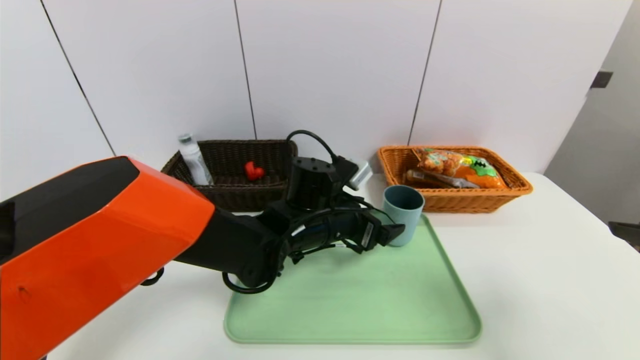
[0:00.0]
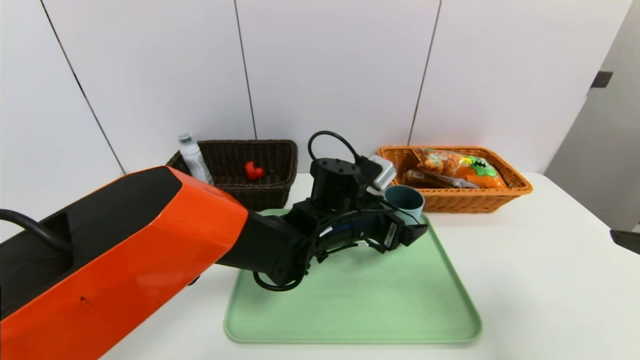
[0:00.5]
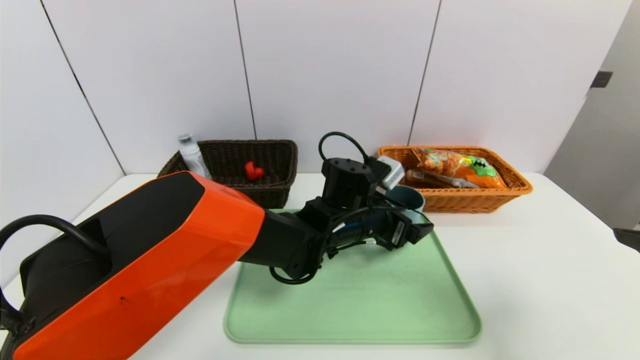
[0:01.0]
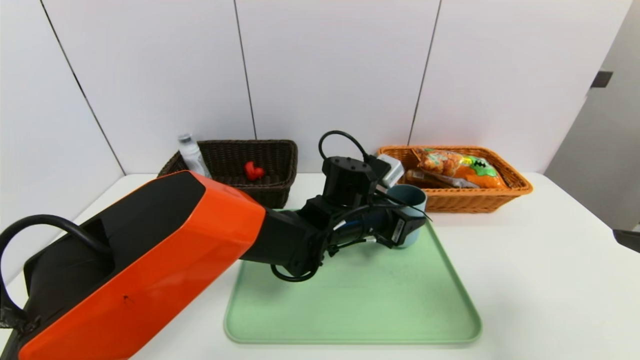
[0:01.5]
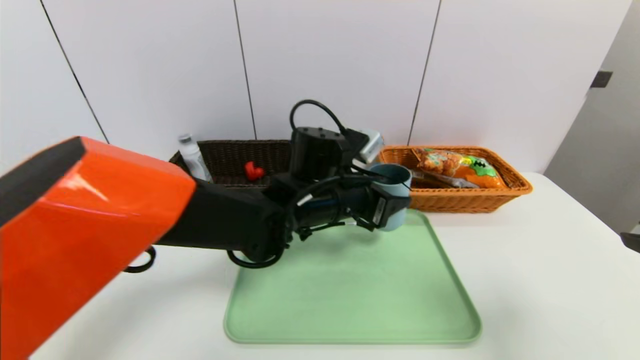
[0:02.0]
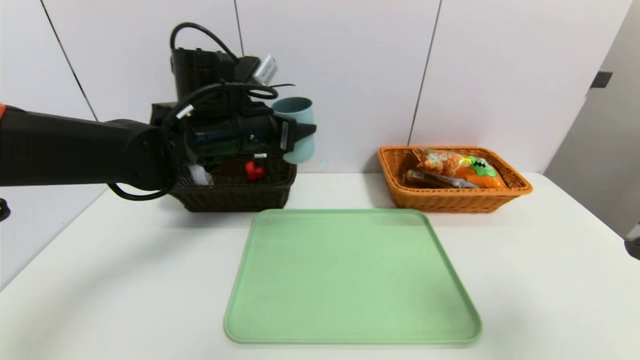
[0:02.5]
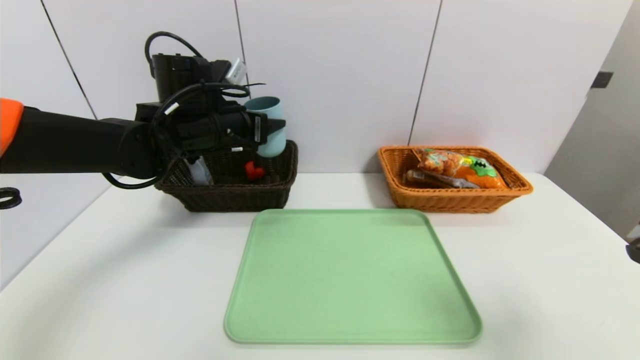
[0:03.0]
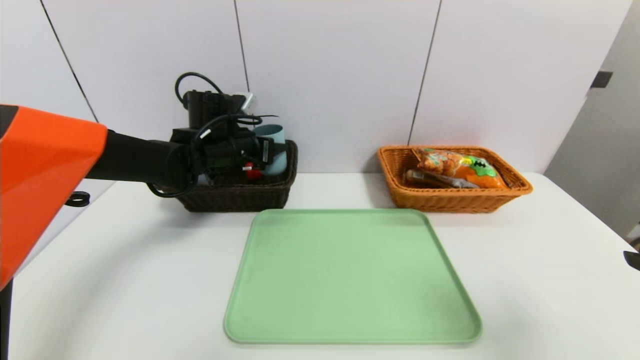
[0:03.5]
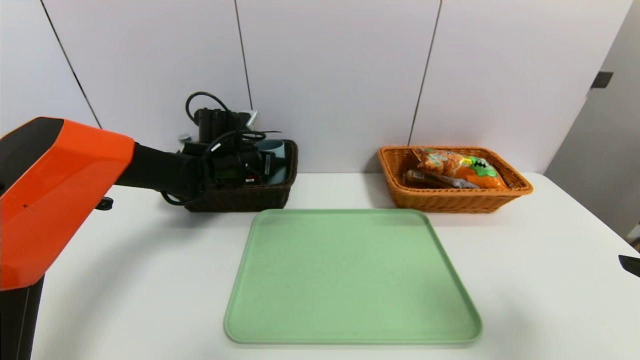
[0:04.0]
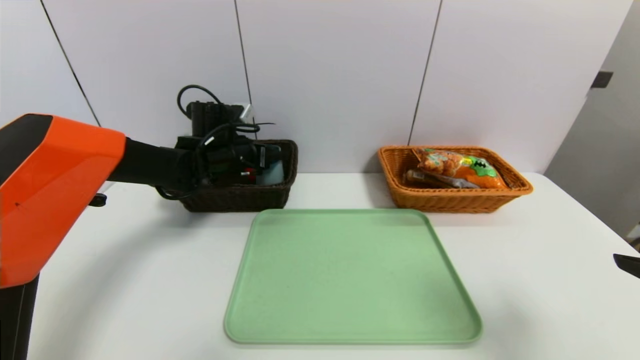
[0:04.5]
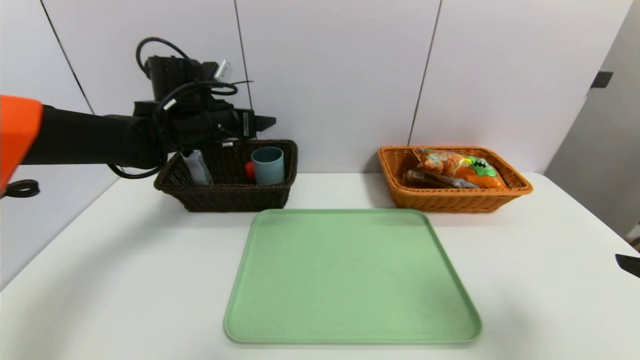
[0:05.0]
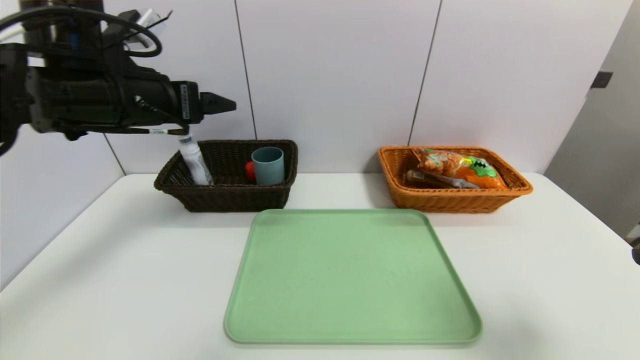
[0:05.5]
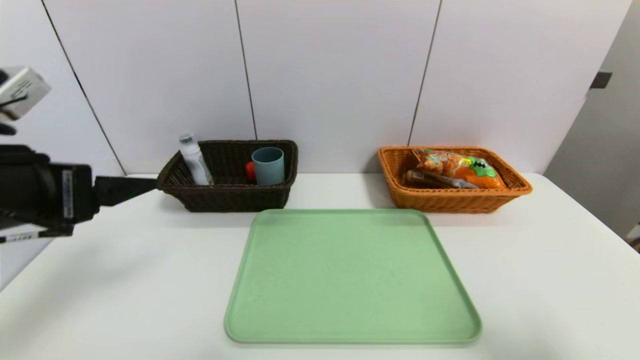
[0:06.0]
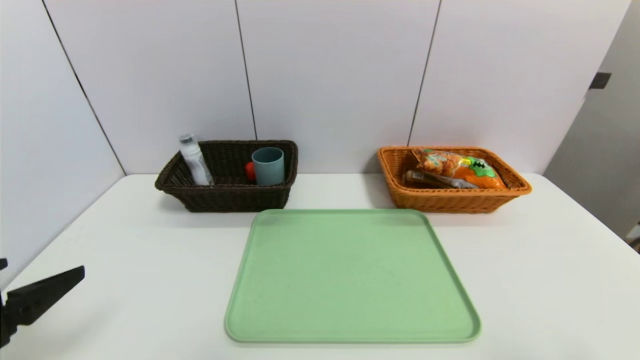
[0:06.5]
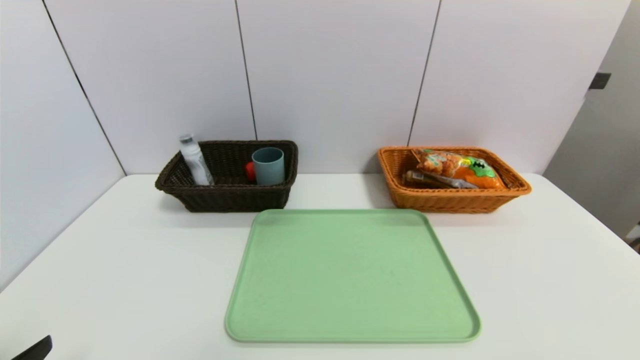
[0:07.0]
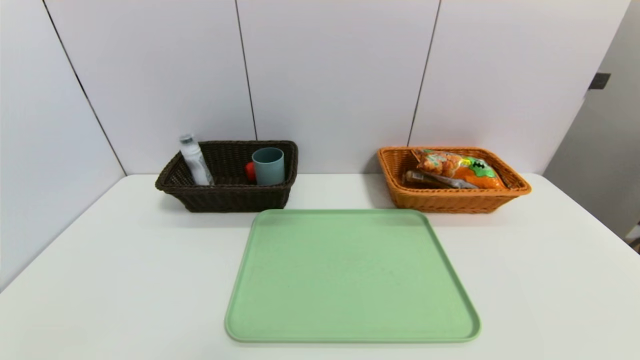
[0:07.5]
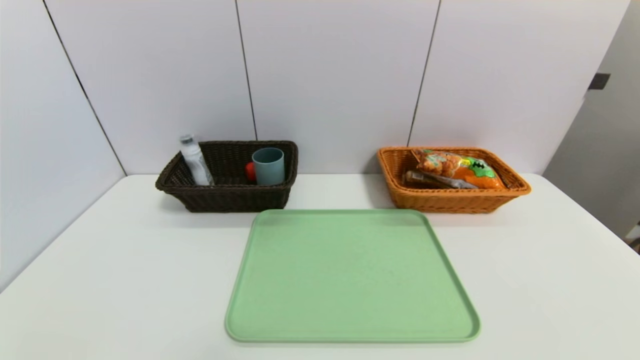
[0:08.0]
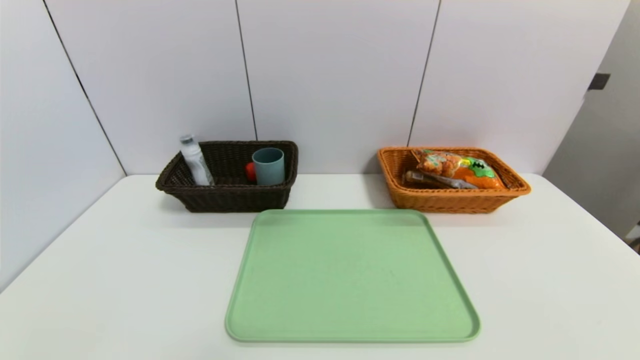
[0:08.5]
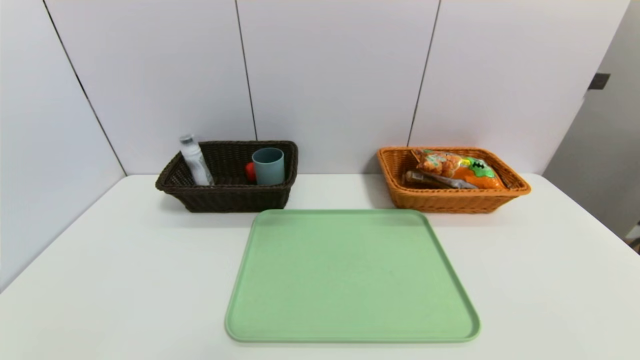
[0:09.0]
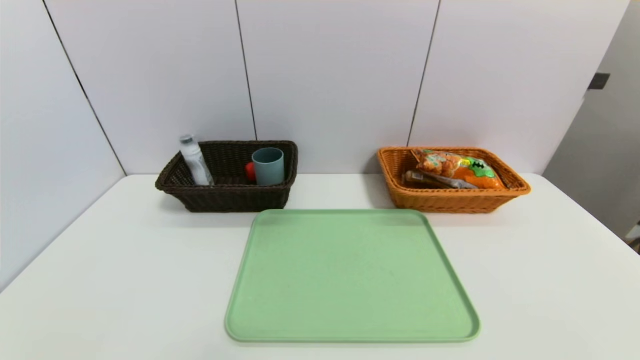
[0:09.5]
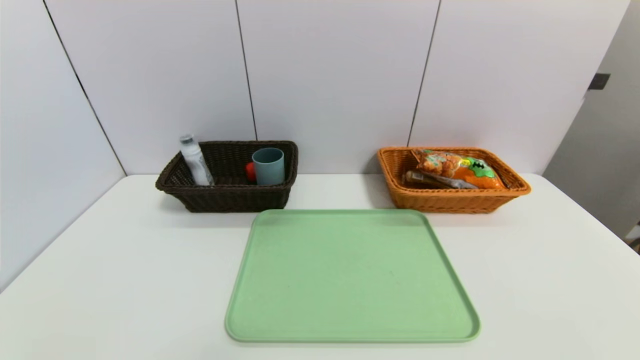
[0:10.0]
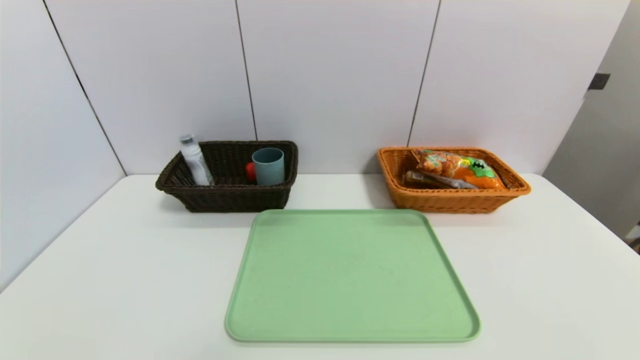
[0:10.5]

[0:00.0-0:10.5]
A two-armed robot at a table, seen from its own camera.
Task of the whole recording: place the food in the right basket with the right gripper, and place the non food items in the left basket with the left gripper.
Step, 0:00.0 to 0:04.5: Grasp the blue cup and put it in the left basket.
0:00.0 to 0:02.0: The left gripper closes up.
0:02.0 to 0:04.0: The left gripper travels to the left and forward by roughly 20 cm.
0:04.0 to 0:06.5: The left gripper heads backward, covering some 35 cm, and opens its fingers; the right gripper heads backward, covering some 5 cm.
0:06.5 to 0:08.5: The left gripper goes about 15 cm downward and backward.

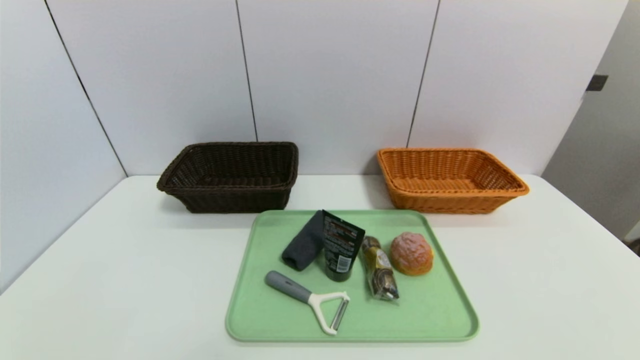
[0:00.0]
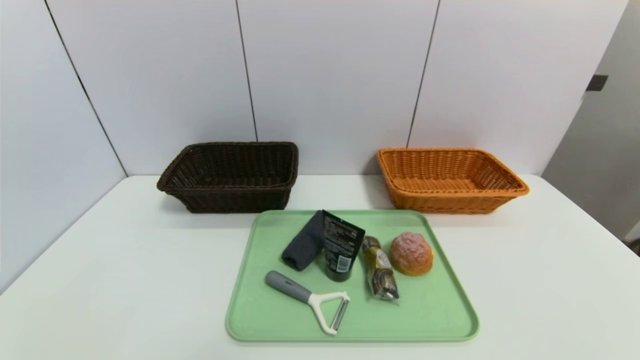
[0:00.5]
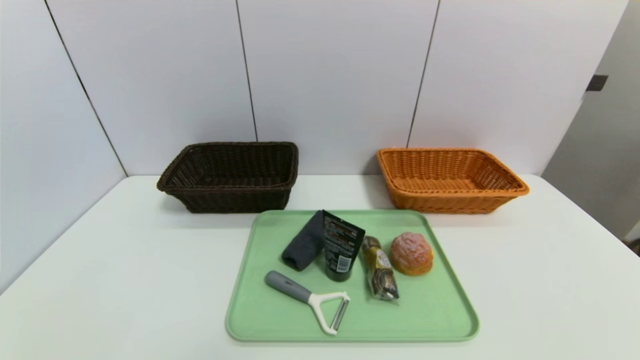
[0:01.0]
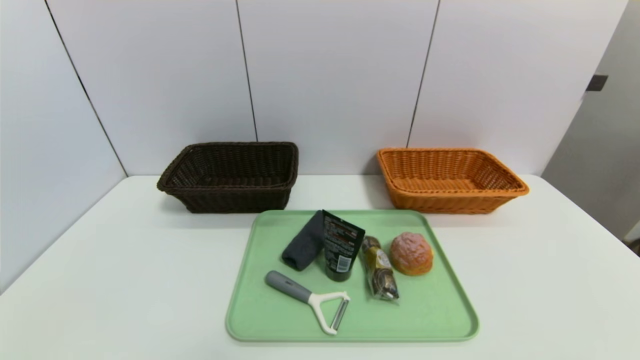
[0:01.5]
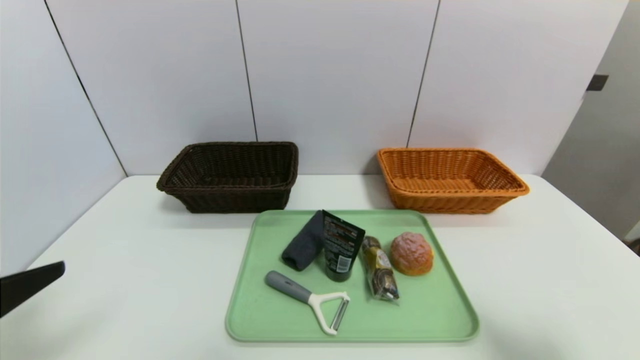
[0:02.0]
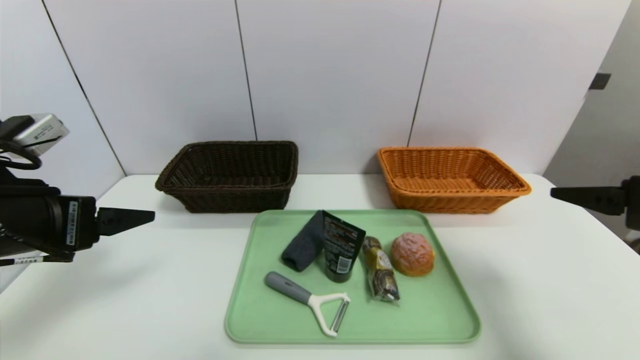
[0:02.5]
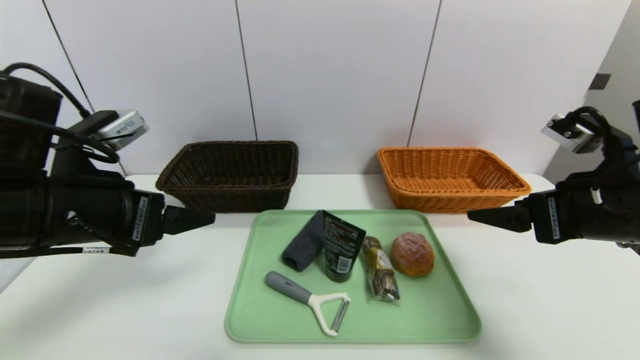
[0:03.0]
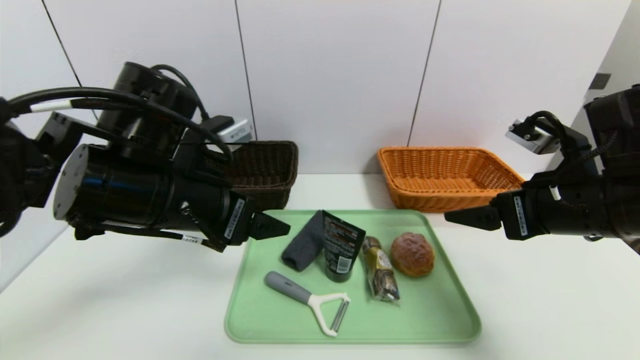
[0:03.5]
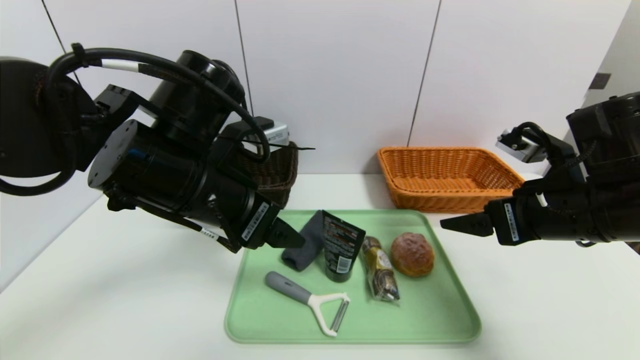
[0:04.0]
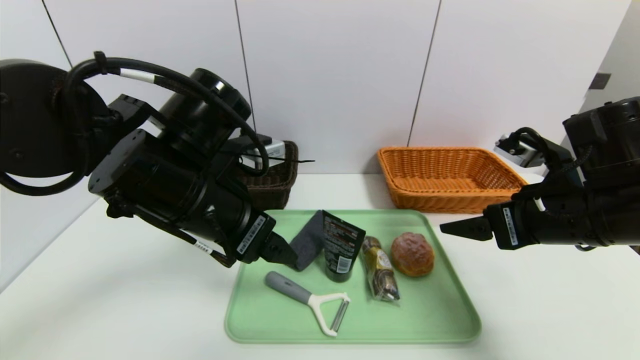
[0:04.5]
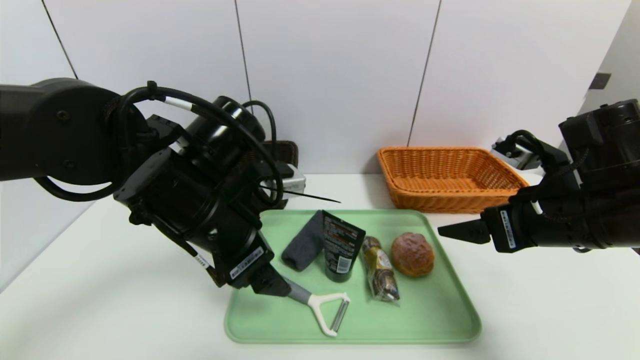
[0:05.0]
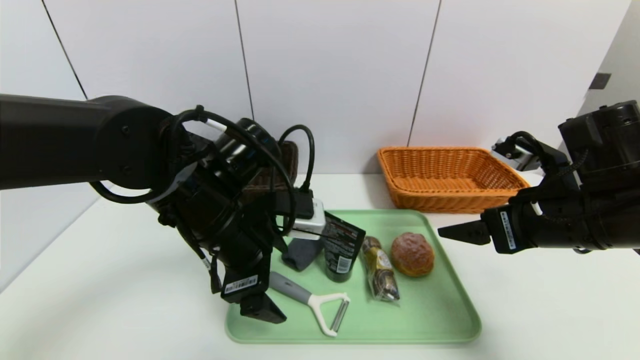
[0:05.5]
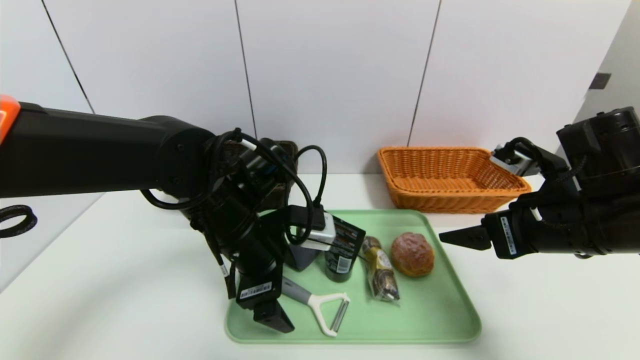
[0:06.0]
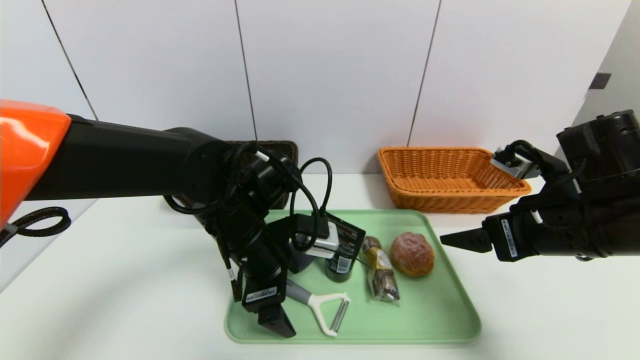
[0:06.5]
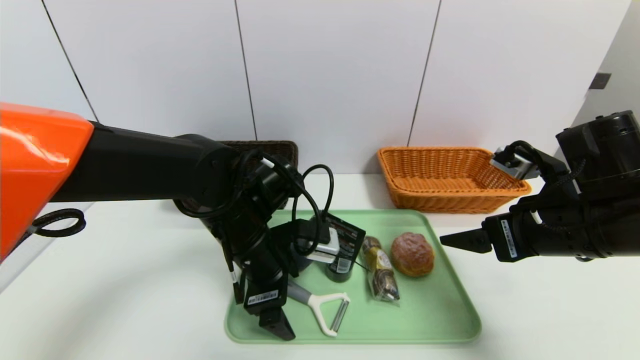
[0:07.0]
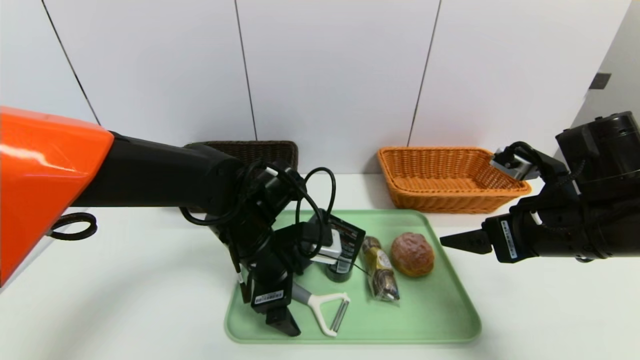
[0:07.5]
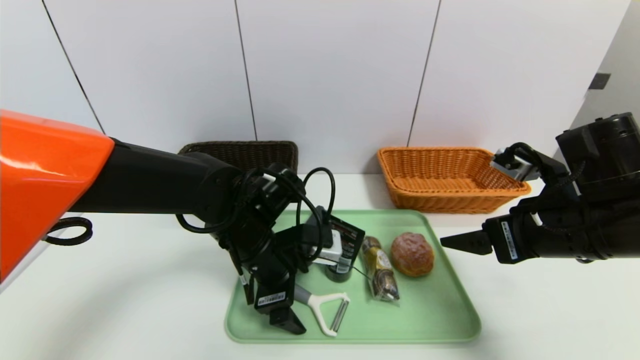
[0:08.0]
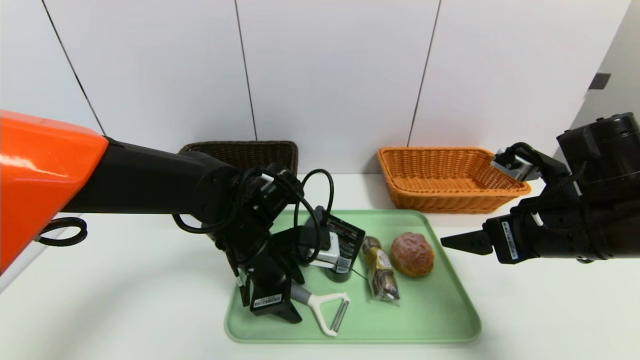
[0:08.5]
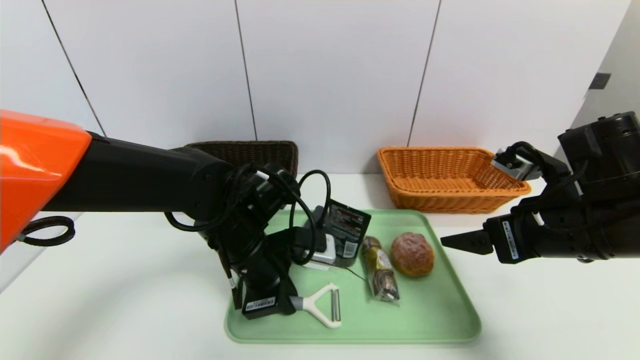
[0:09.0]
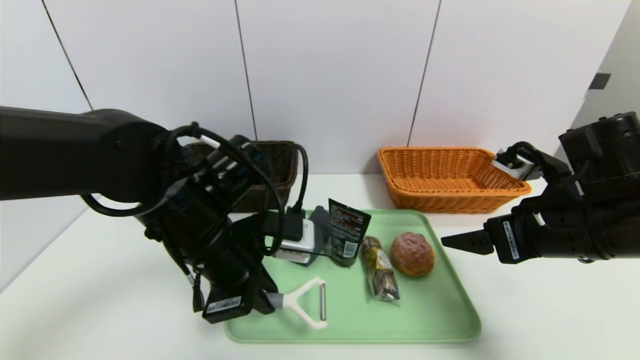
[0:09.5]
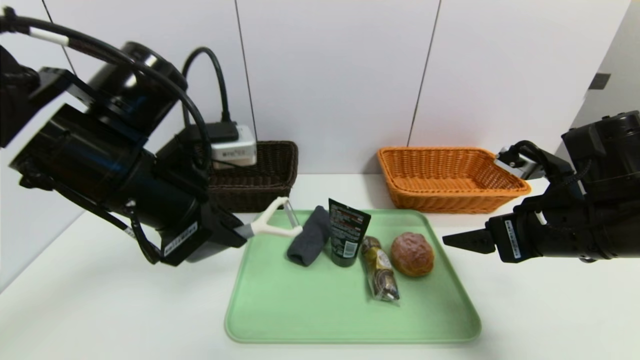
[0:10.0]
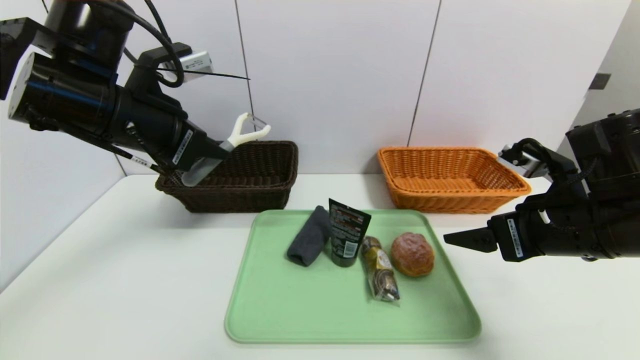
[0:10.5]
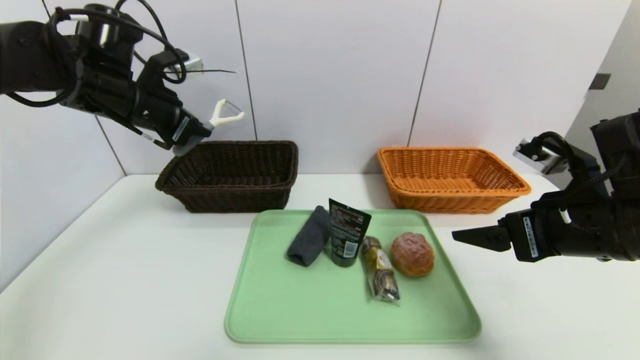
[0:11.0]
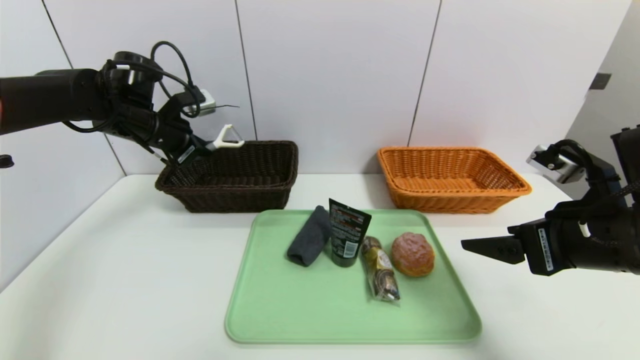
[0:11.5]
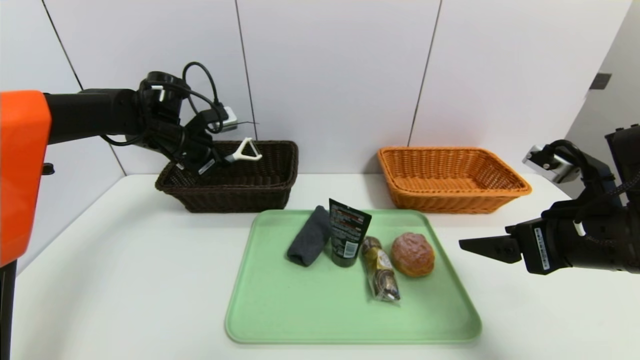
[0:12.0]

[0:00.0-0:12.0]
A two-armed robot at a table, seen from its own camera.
Task of the whole recording: place the food in the right basket with the right gripper, and place the non food items in the left basket with the left gripper.
0:00.0 to 0:02.0: Both grippers move upward and forward, roughly 20 cm.
0:02.0 to 0:04.0: The left gripper travels to the right and forward by roughly 25 cm. Meanwhile the right gripper shifts roughly 20 cm forward and to the left.
0:04.0 to 0:06.0: The left gripper shifts about 10 cm downward.
0:06.0 to 0:08.0: The left gripper moves about 5 cm.
0:08.0 to 0:10.0: The left gripper heads upward and to the left, covering about 15 cm, and closes.
0:10.0 to 0:12.0: The left gripper moves forward, about 20 cm.
